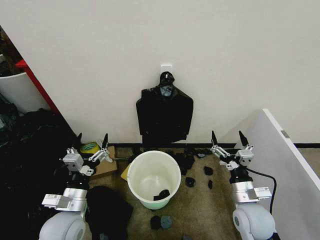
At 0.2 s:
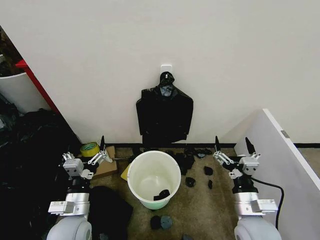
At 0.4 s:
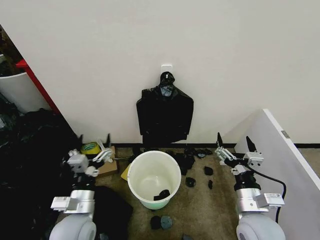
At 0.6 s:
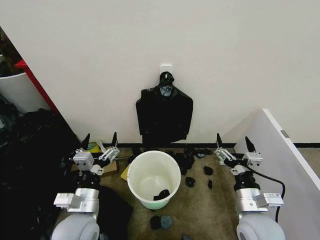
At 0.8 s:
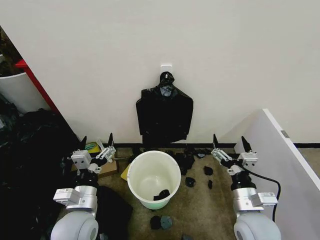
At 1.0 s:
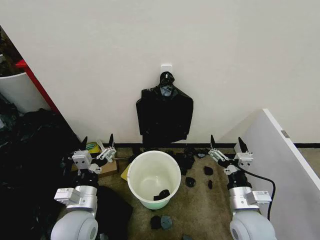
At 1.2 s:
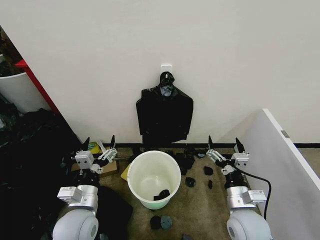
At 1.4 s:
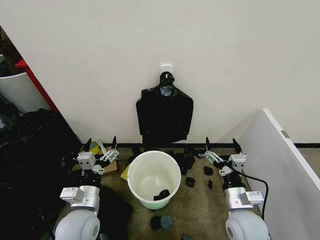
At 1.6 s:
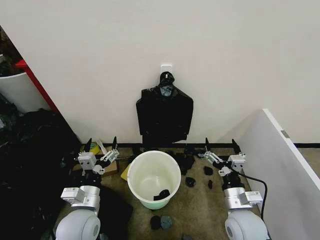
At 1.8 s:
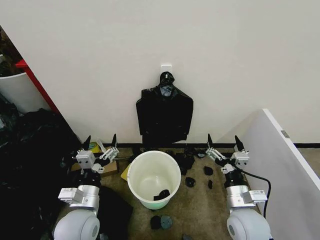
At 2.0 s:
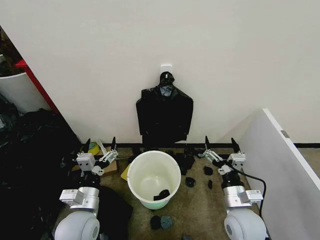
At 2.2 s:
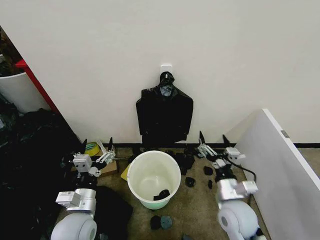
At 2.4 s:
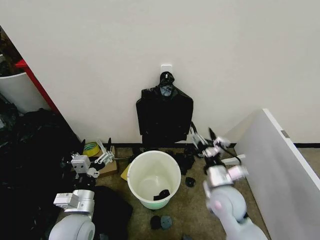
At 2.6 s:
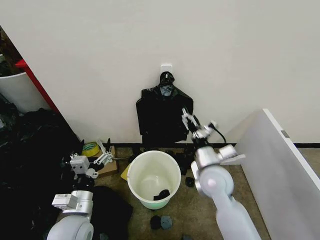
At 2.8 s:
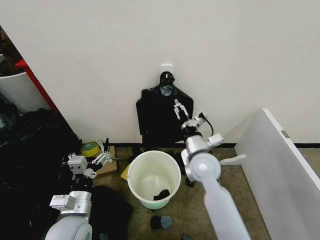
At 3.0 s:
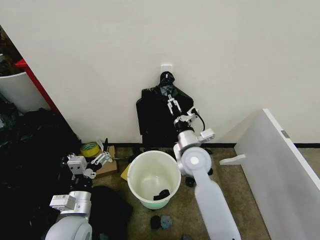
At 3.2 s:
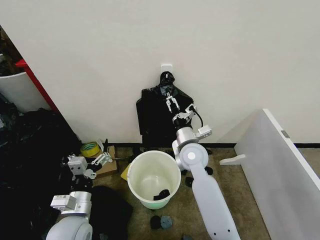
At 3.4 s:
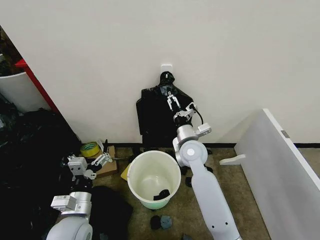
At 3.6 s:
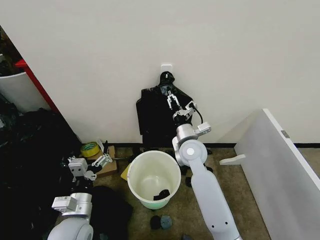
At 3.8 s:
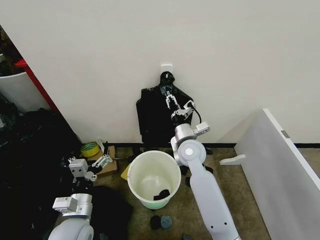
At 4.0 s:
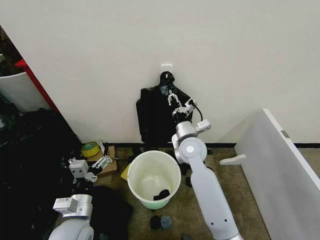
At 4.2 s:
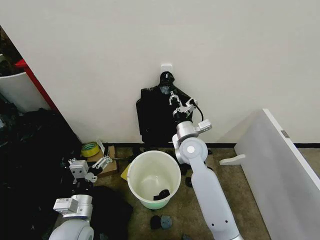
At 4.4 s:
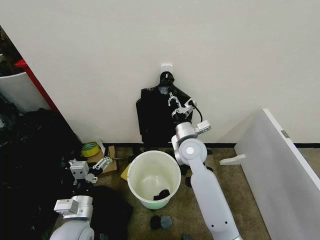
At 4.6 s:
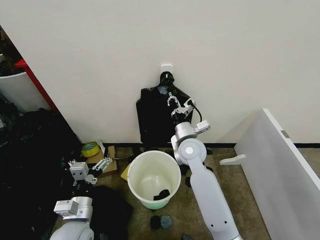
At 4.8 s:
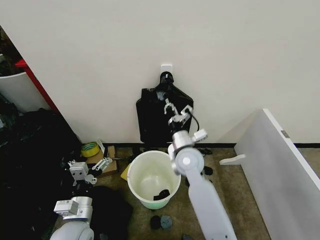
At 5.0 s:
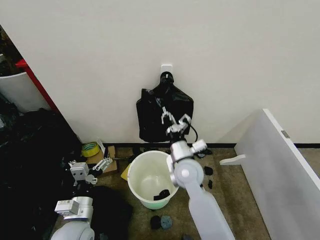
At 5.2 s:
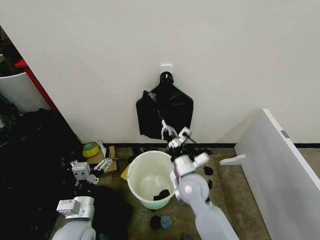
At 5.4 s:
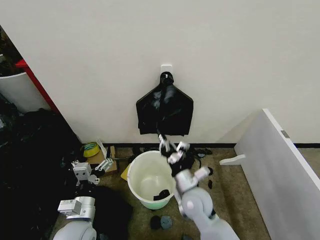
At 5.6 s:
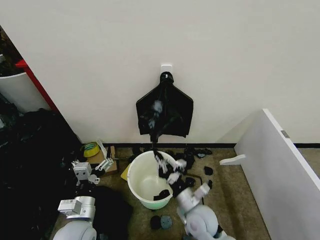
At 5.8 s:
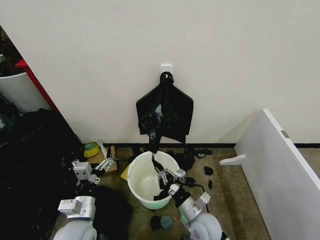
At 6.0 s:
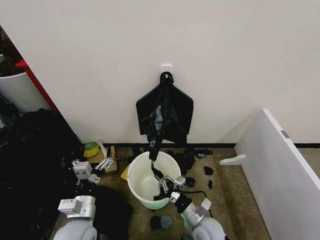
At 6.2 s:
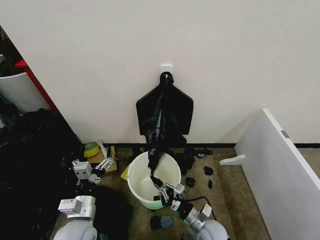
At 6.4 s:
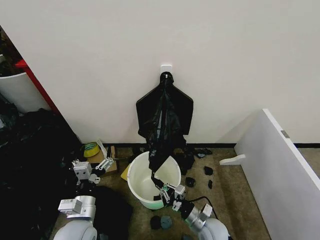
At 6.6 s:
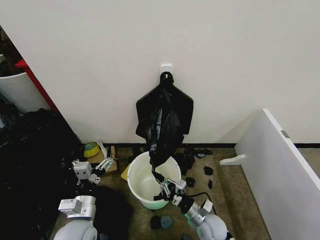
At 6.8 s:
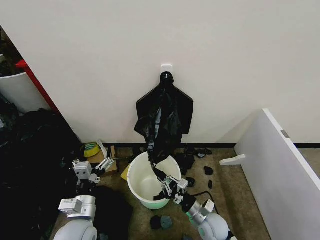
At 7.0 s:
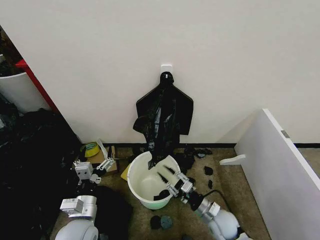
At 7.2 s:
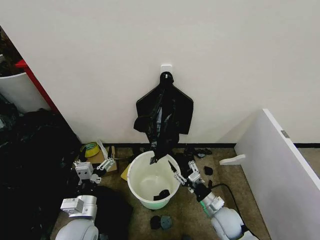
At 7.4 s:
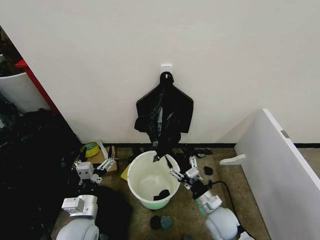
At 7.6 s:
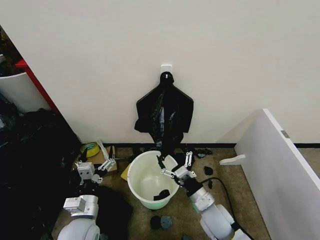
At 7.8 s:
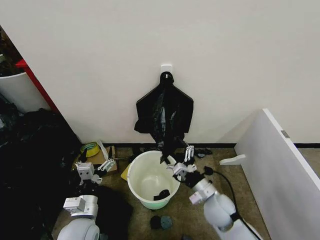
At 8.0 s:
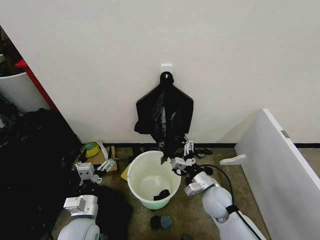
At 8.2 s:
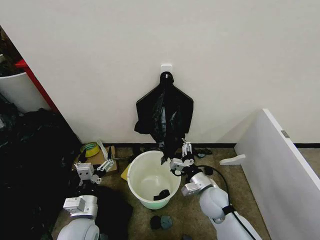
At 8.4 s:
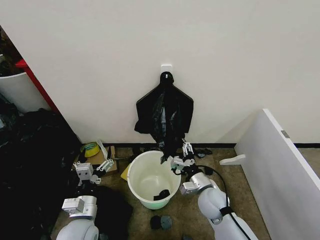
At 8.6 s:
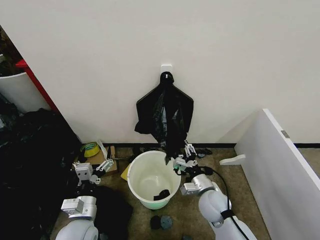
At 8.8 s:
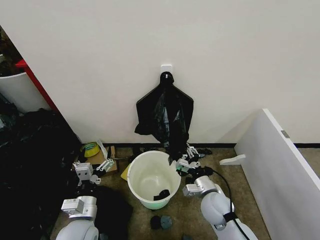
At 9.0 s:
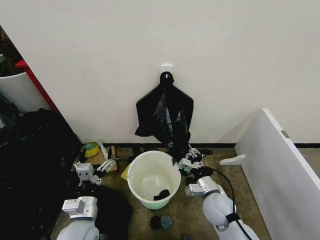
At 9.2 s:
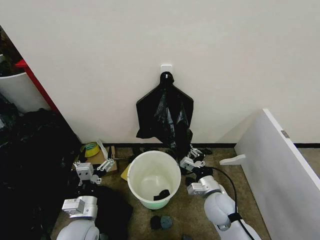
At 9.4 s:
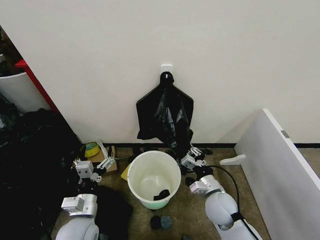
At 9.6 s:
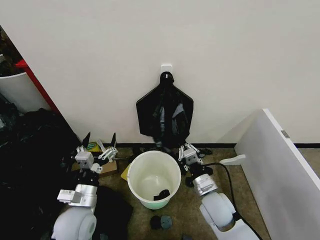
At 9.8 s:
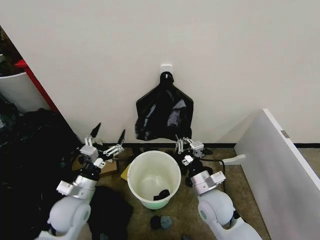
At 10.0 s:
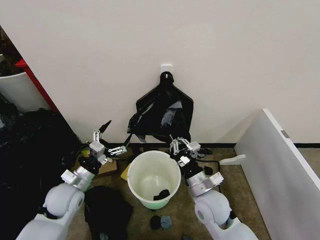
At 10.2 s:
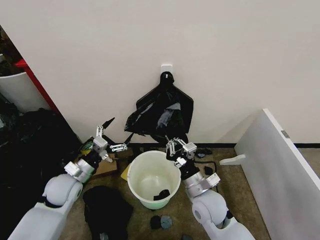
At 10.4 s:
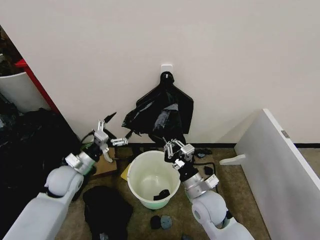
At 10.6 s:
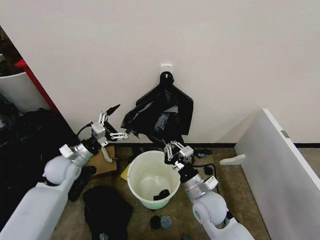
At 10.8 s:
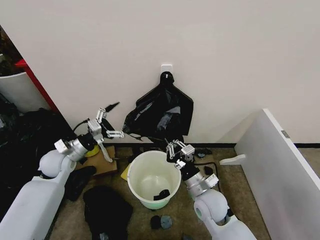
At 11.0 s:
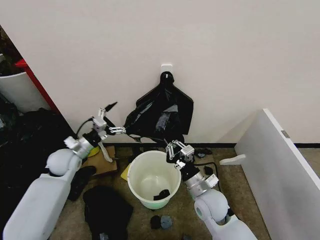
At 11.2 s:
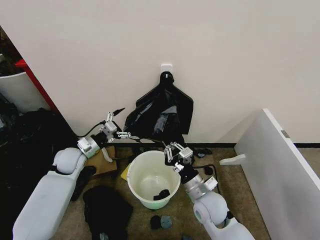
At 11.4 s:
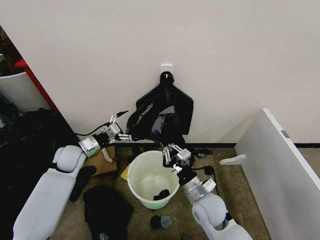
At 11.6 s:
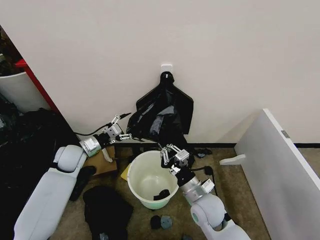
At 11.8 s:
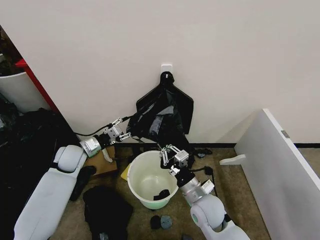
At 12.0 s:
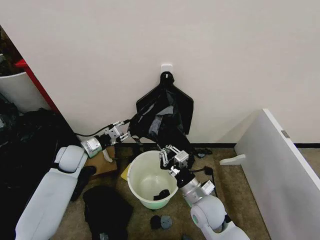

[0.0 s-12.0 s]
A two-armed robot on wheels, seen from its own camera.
Task of the whole recording: Place the garbage bag over the trash bin.
1.6 to 3.0 s: The right gripper goes approximately 20 cm forward, to the left and upward.
3.0 to 4.4 s: The right gripper closes.
4.4 to 6.0 s: The right gripper goes about 30 cm downward and backward.
6.0 to 7.6 s: The right gripper shifts roughly 5 cm upward, and opens up.
7.6 to 9.0 s: The right gripper closes.
9.0 to 10.4 s: The left gripper heads forward and to the left, covering some 20 cm, while the right gripper is displaced upward by approximately 5 cm.
10.4 to 12.0 s: The left gripper moves forward, about 10 cm, and closes.

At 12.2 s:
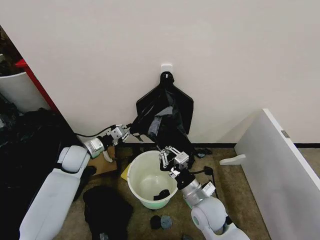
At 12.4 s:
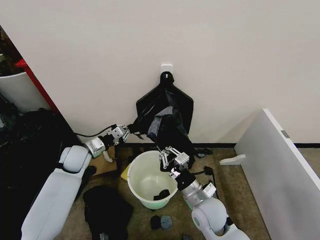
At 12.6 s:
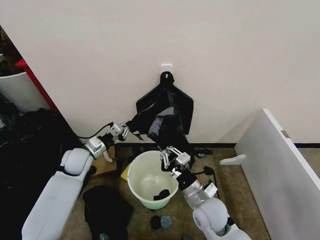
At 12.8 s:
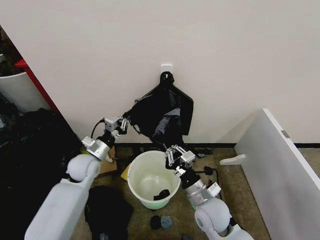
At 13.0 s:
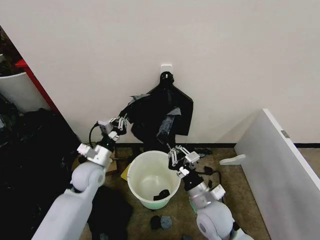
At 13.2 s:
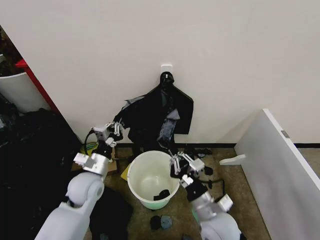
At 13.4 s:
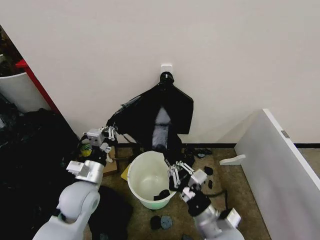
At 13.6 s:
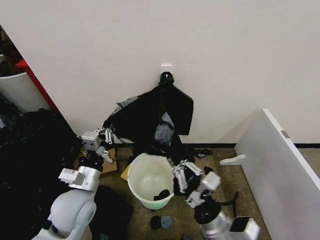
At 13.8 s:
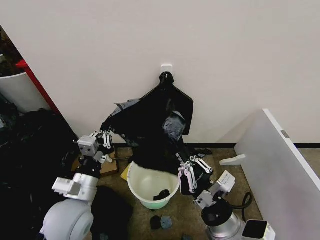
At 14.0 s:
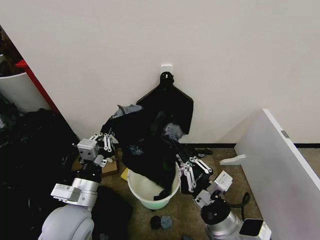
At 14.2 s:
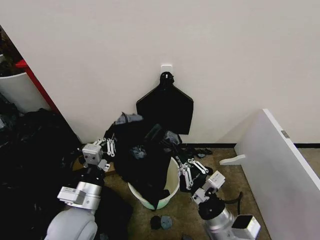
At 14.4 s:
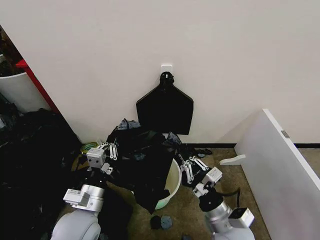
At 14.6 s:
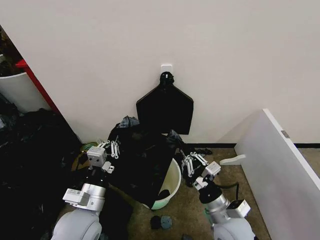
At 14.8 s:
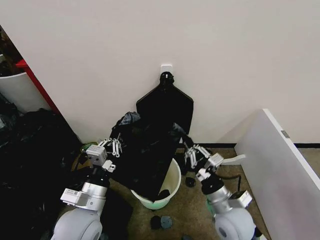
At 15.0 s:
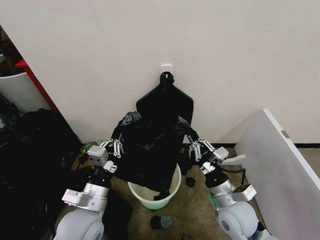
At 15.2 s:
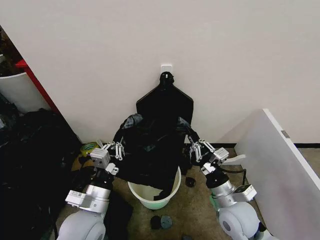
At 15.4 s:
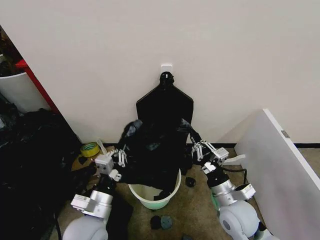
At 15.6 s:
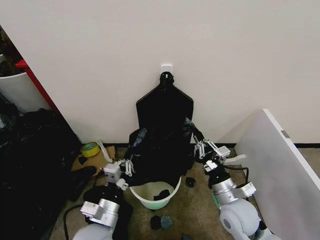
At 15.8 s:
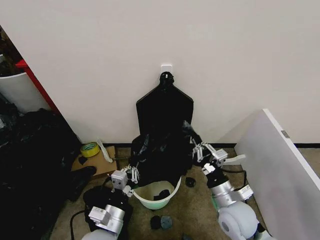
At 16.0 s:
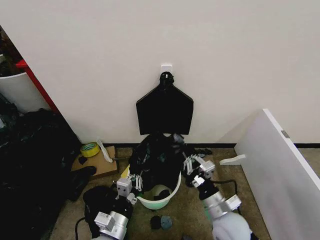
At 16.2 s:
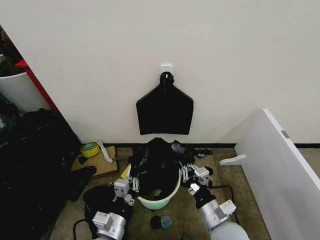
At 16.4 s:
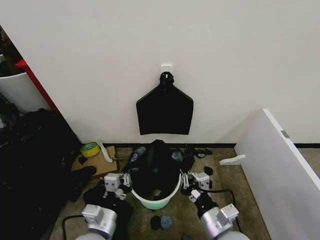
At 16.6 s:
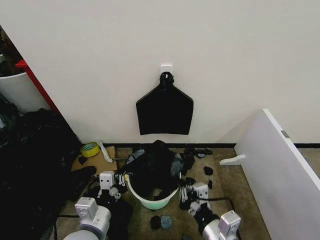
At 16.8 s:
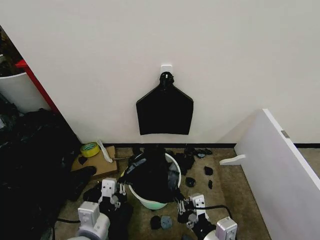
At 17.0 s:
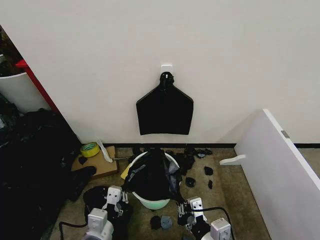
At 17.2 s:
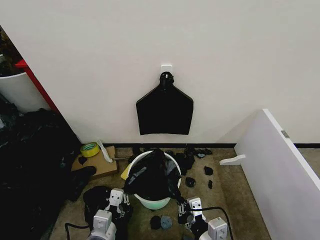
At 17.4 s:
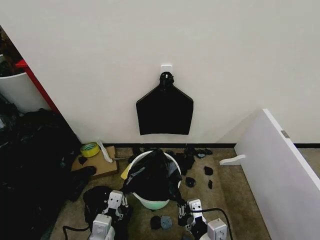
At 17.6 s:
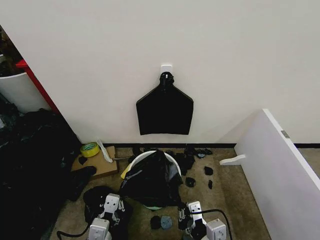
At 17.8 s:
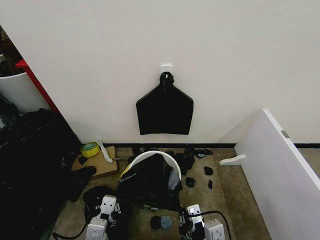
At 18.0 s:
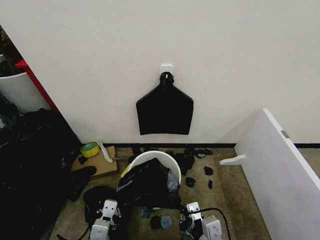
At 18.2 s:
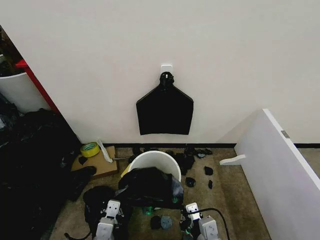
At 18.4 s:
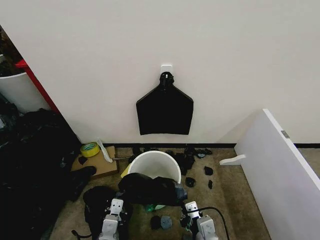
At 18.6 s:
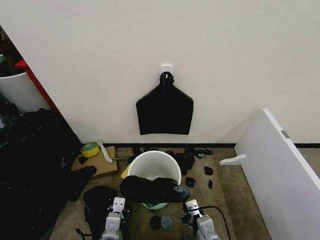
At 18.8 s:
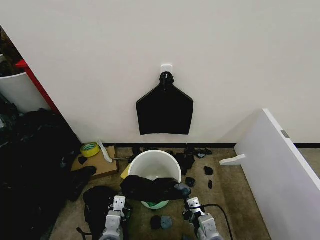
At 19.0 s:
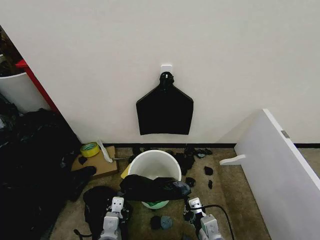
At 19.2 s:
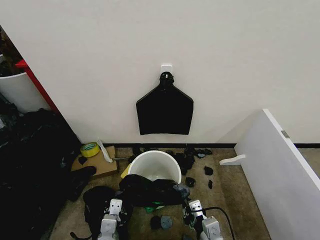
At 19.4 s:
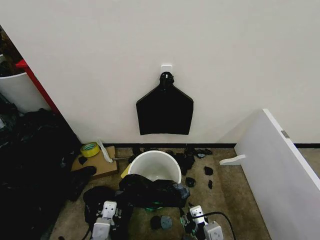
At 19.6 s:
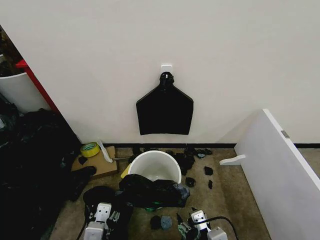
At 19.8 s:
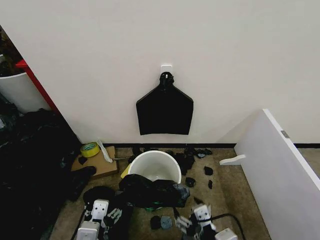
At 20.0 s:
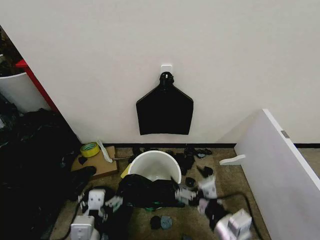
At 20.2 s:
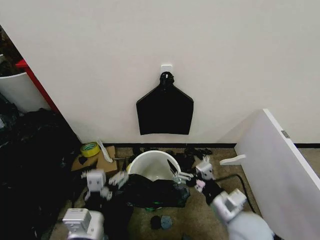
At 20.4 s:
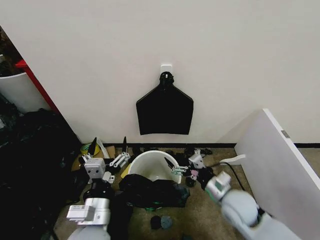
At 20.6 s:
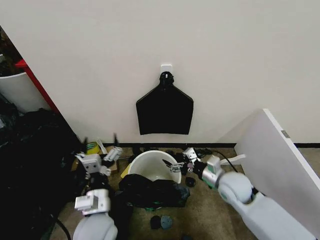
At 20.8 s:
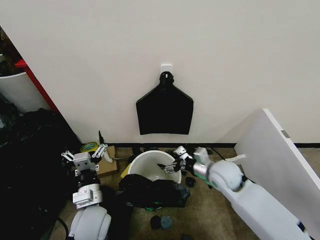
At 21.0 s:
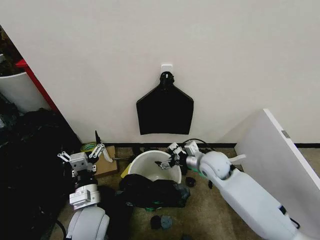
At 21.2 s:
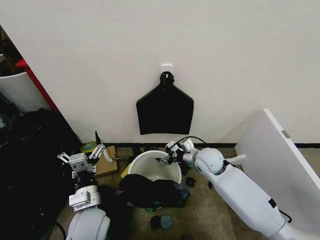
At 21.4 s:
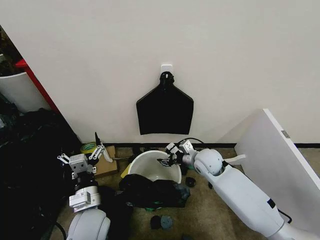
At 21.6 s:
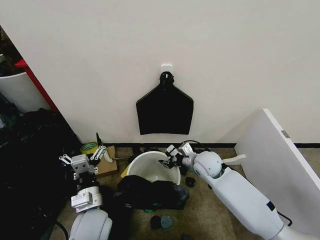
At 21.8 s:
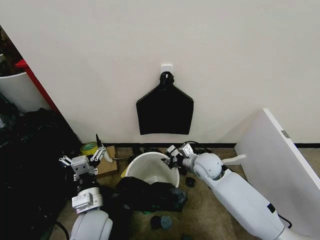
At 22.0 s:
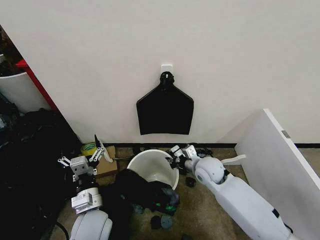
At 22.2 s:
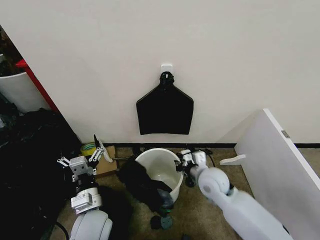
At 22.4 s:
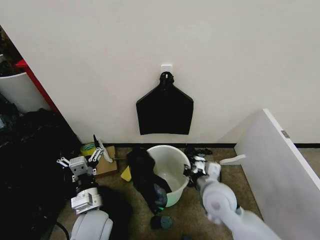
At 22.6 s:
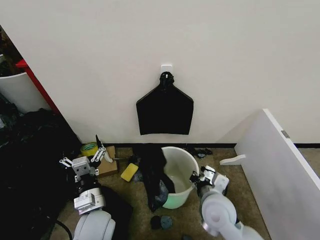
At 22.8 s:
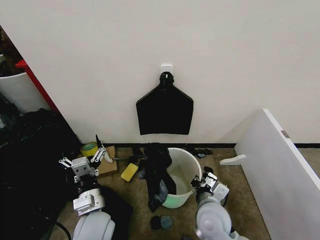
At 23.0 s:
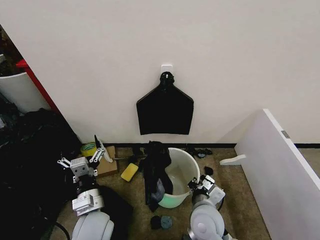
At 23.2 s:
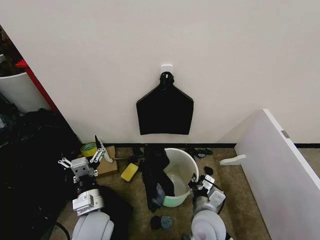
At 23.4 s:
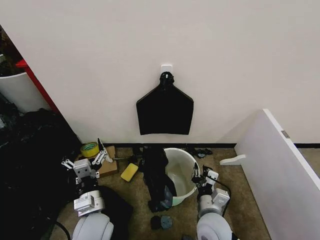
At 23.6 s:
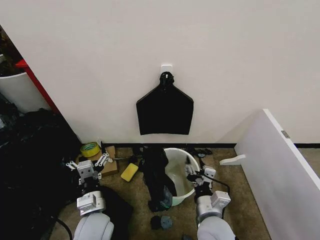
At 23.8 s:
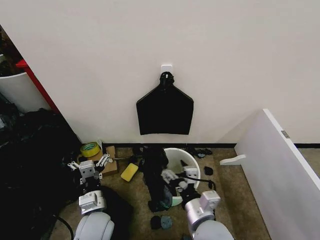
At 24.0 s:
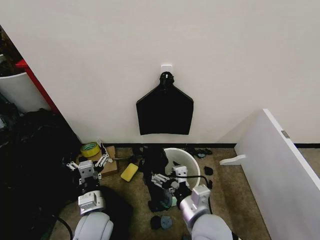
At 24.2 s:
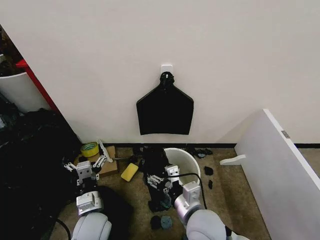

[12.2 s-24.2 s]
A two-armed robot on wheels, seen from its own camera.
Task of the whole recording: Place the garbage bag over the trash bin.
12.2 to 13.8 s: The left gripper travels backward and to the right by about 20 cm. The right gripper is displaced backward and upward by roughly 15 cm.
13.8 to 15.2 s: The right gripper travels forward by some 10 cm.
15.2 to 16.6 s: The left gripper moves approximately 10 cm downward and comes back, while the right gripper shifts approximately 10 cm backward.
16.6 to 18.2 s: The left gripper goes roughly 5 cm downward.
18.2 to 19.8 s: The left gripper is displaced upward by some 10 cm, and opens, while the right gripper moves about 5 cm, and opens up.
19.8 to 21.2 s: The left gripper heads forward and downward, covering roughly 15 cm, while the right gripper shifts approximately 35 cm forward.
21.2 to 22.6 s: The right gripper heads backward, covering some 15 cm, and closes.
22.6 to 24.2 s: The right gripper moves to the left and backward, roughly 10 cm, and opens up.
